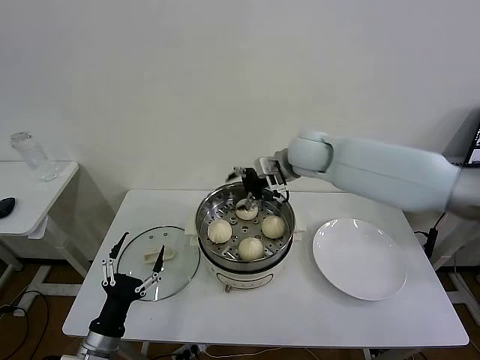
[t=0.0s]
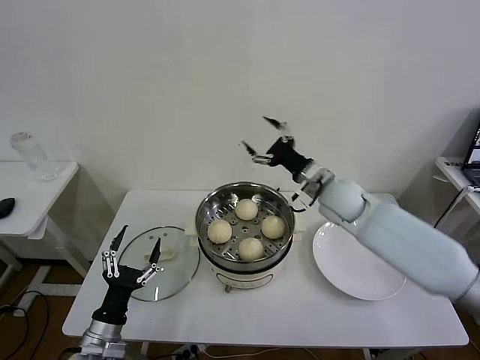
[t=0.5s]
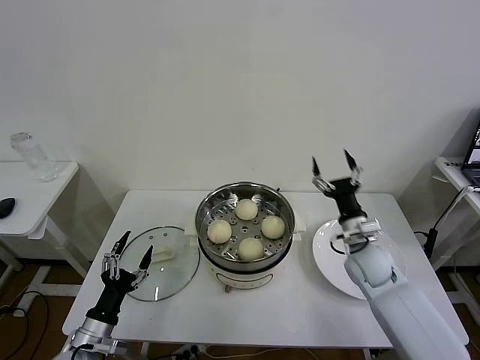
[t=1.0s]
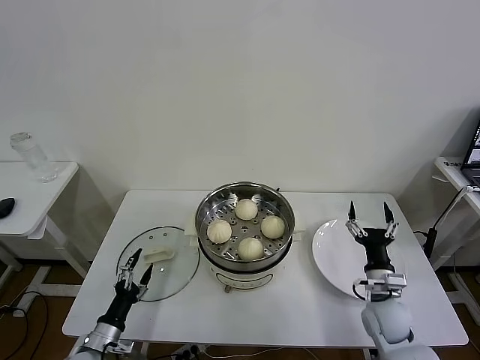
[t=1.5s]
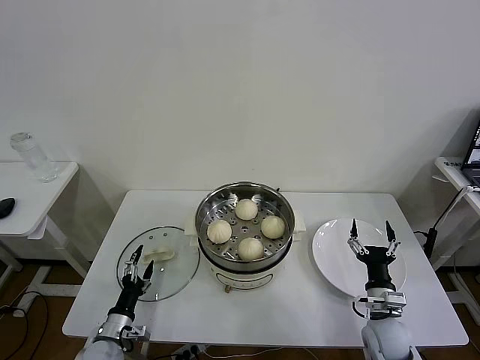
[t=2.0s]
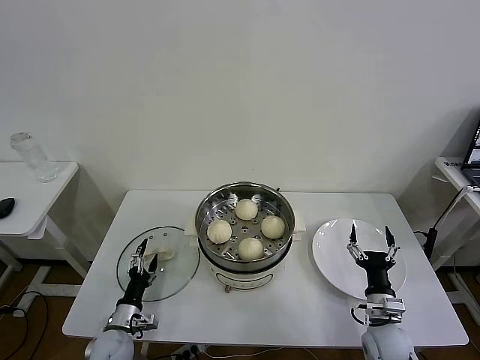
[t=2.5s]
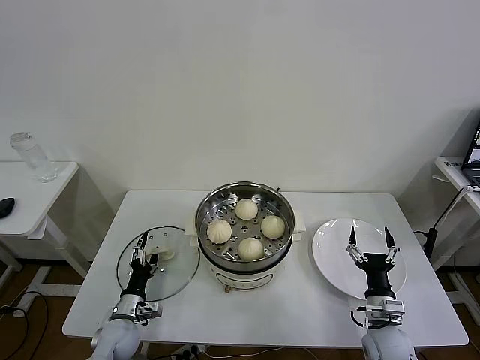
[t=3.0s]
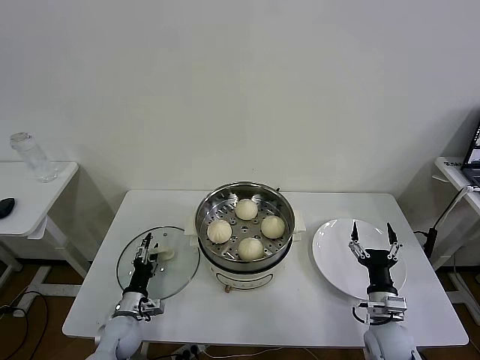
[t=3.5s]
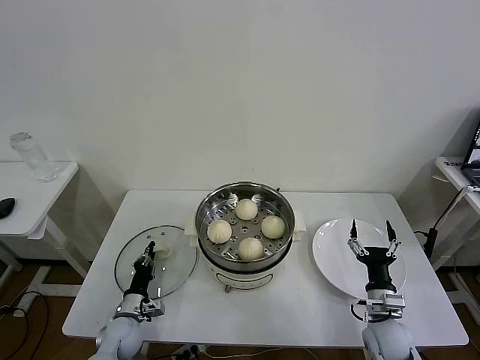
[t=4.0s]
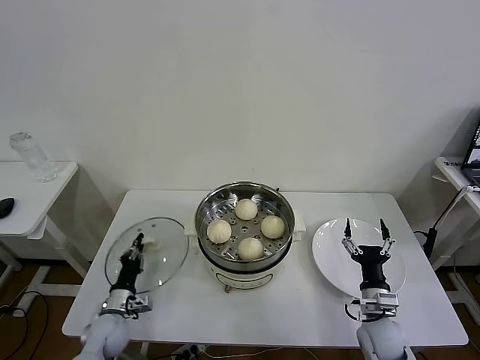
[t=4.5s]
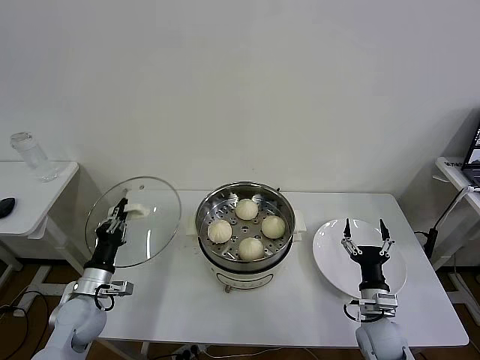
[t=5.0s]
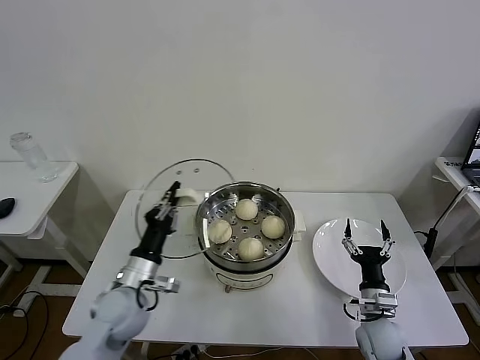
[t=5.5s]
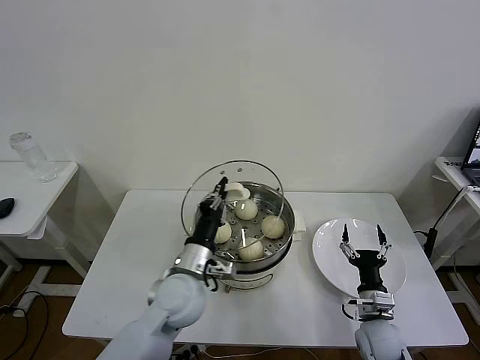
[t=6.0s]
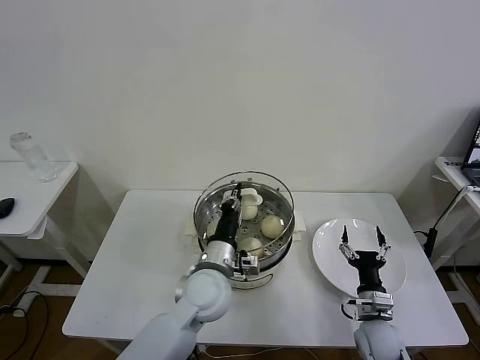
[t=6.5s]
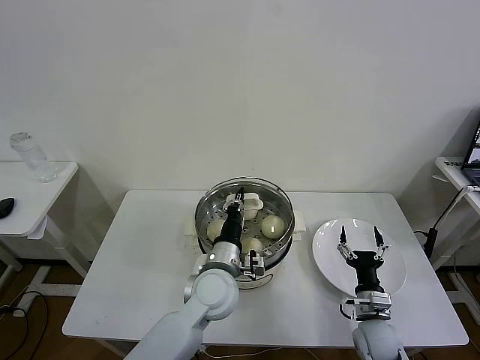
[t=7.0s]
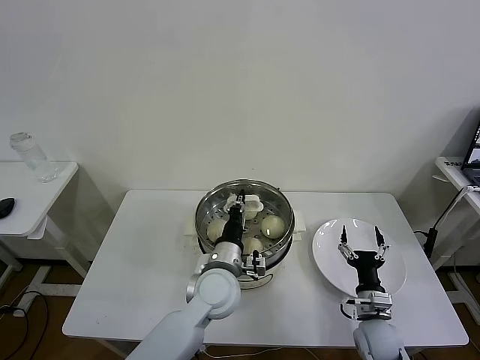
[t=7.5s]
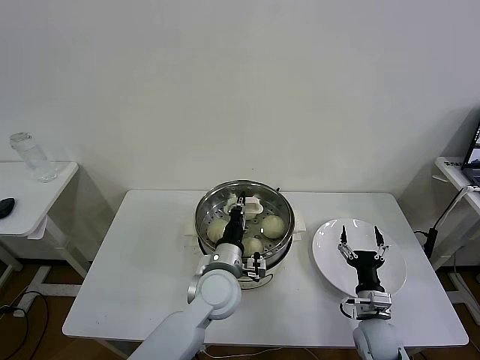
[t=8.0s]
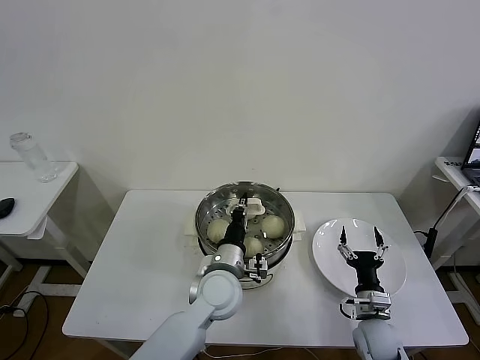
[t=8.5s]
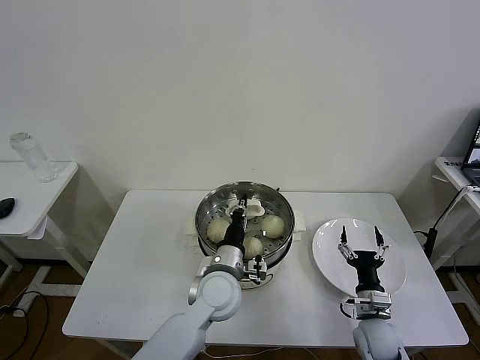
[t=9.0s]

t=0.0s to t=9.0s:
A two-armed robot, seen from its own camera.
Task of the whole recording: take steamed baozi put them in steamer then cover it.
Step, t=0.0s to t=4.0s: Grasp the pot lid with left gripper.
t=0.0s to t=2.0s: The left gripper goes some 10 cm downward and forward. The right gripper is displaced downward, backward and to the right by approximately 50 cm.
t=2.0s to t=4.5s: The left gripper moves forward, some 5 cm, and closes its fingers.
t=4.5s to t=7.0s: The left gripper goes about 35 cm to the right and upward.
t=7.0s to t=9.0s: The grippers make only small movements.

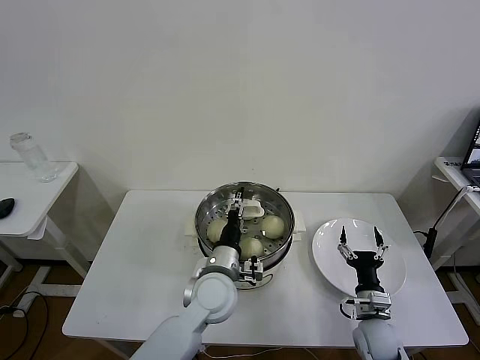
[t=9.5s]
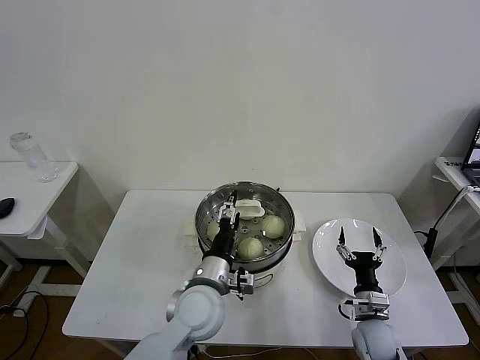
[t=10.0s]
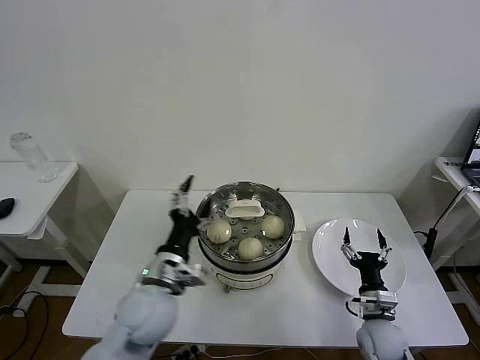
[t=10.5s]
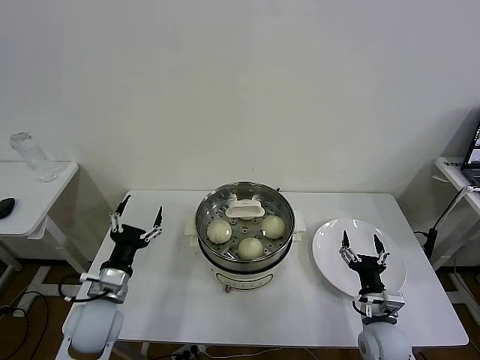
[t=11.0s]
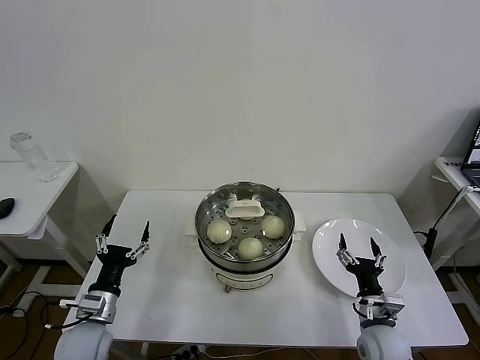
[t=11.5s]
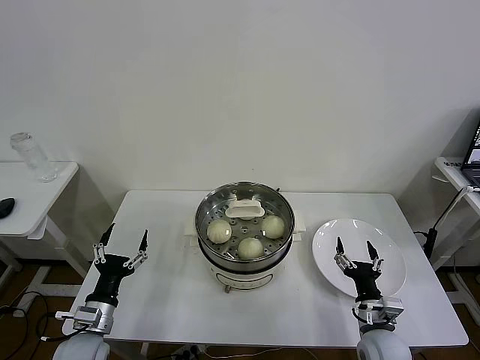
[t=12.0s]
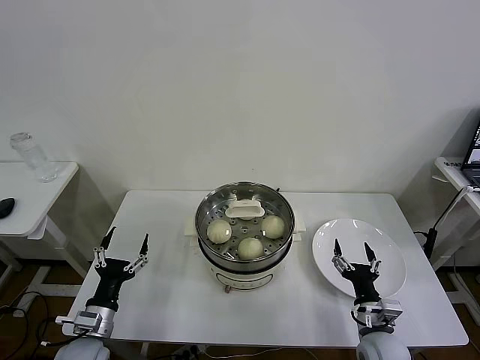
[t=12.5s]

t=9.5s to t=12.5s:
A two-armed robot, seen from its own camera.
Task of the whole recording: take steamed baozi put them in steamer then cover it.
t=9.5s to t=11.0s: The left gripper goes approximately 25 cm to the left, and opens up.
t=11.0s to t=12.5s: The left gripper goes roughly 10 cm downward and backward.
